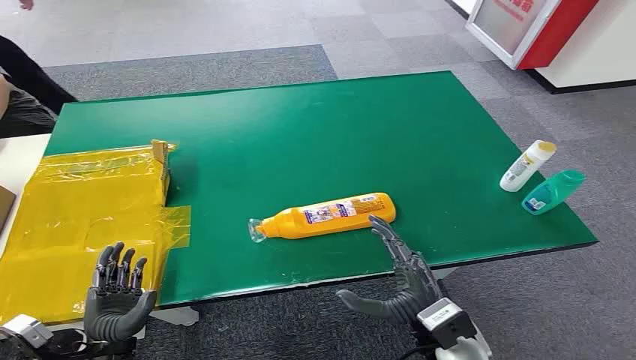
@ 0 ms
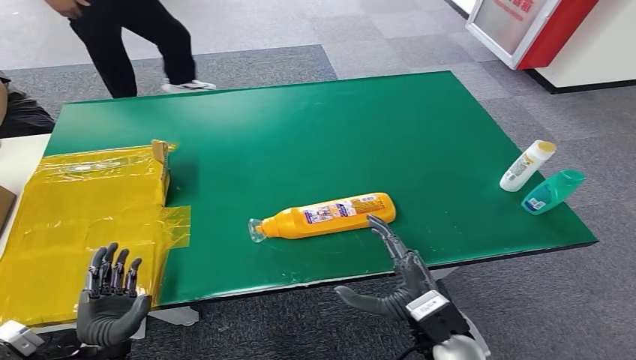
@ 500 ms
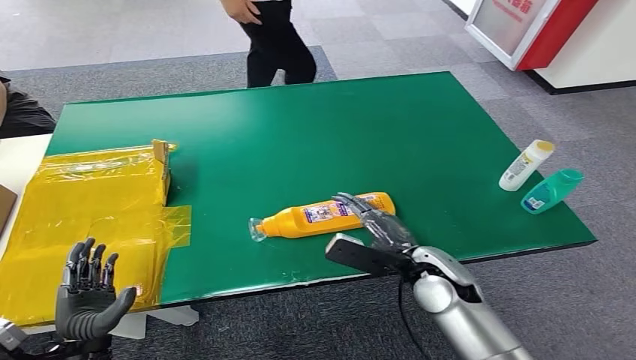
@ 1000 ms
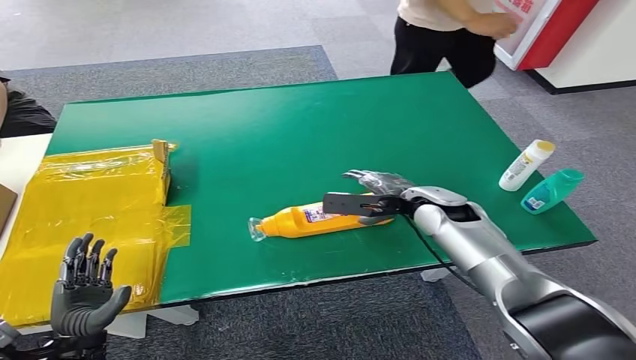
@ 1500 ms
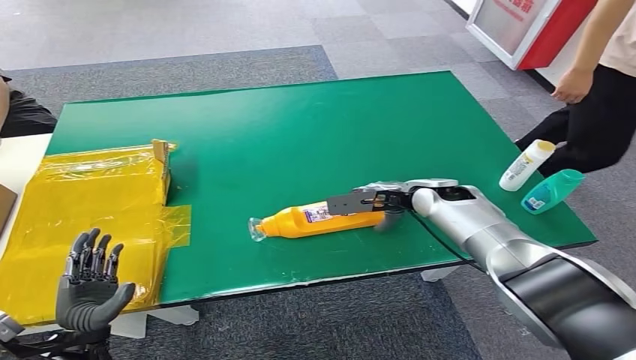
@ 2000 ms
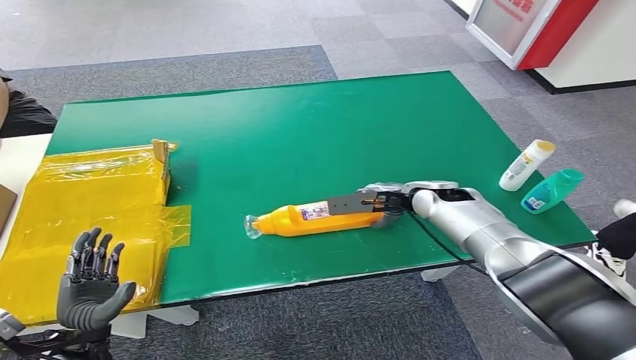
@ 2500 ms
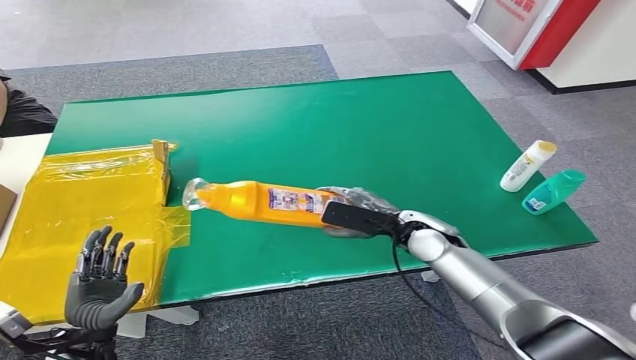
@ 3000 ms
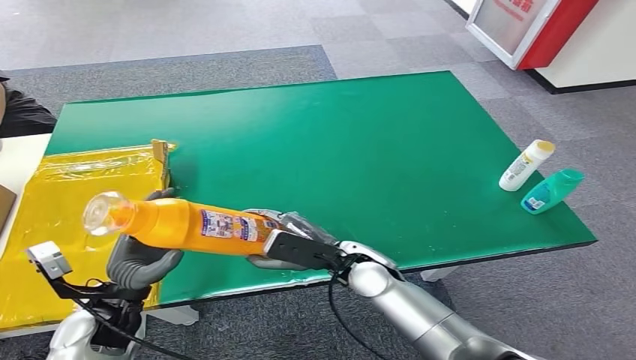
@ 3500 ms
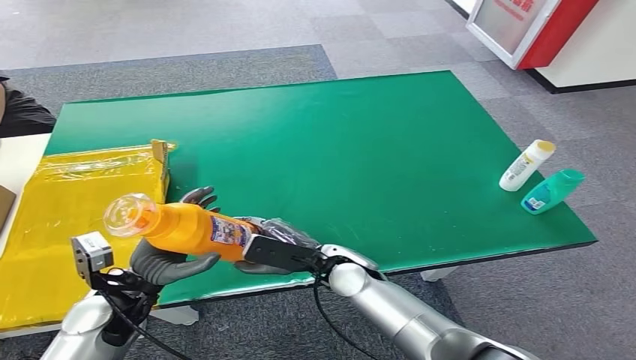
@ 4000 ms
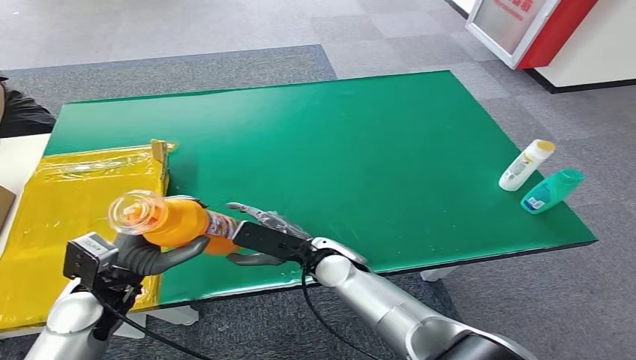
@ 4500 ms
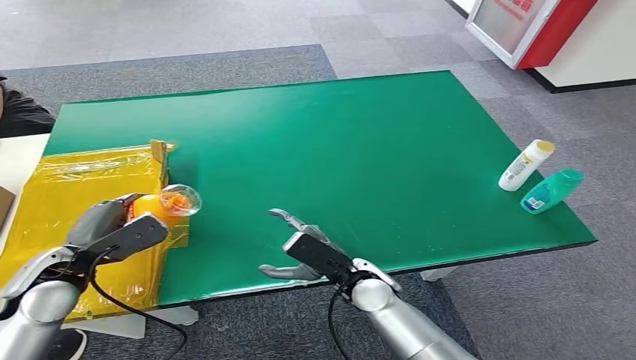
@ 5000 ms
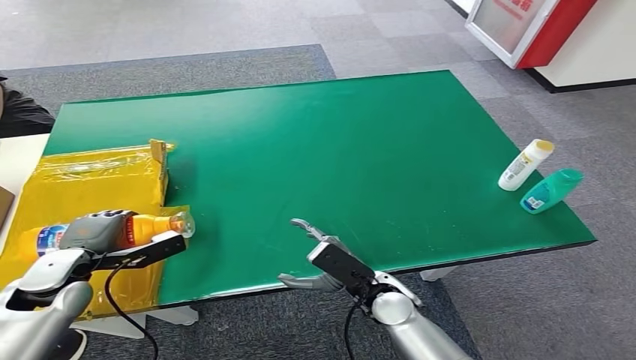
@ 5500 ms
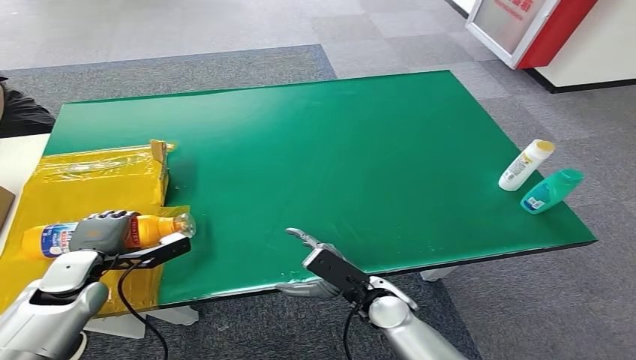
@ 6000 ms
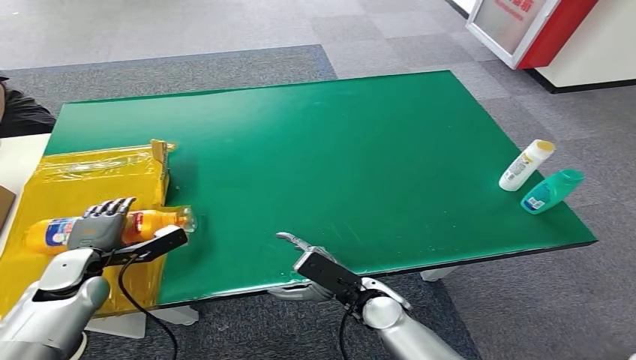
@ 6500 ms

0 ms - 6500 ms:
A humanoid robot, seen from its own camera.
Step, 0 ms - 2500 ms: Pick up the bottle from the table.
Step, 3500 ms - 6500 ms: Turn the bottle to the front side.
4500 ms - 6500 ms: The left hand heads to the left, downward and forward, covering approximately 10 cm. The right hand heads backward, to the right and downward, covering about 10 cm.

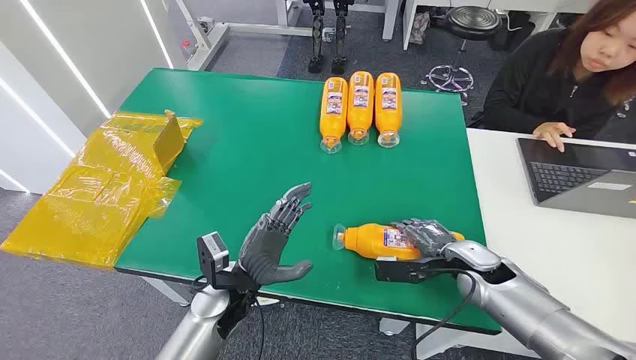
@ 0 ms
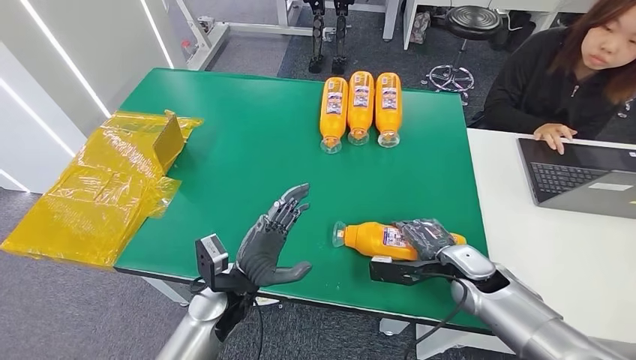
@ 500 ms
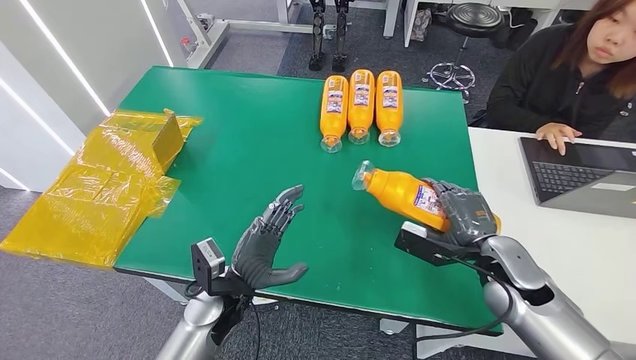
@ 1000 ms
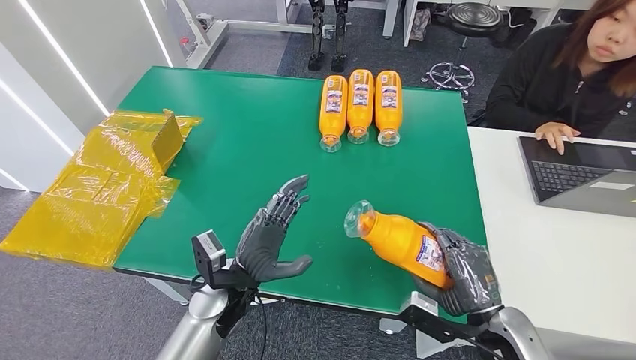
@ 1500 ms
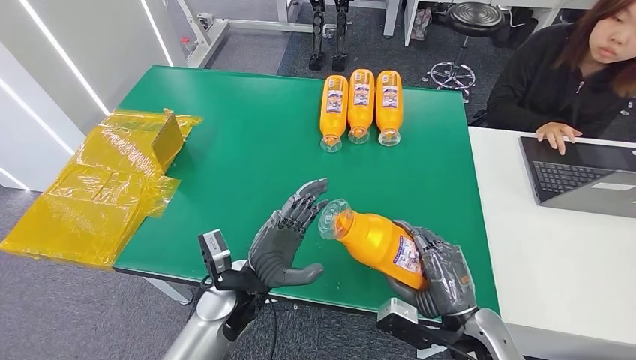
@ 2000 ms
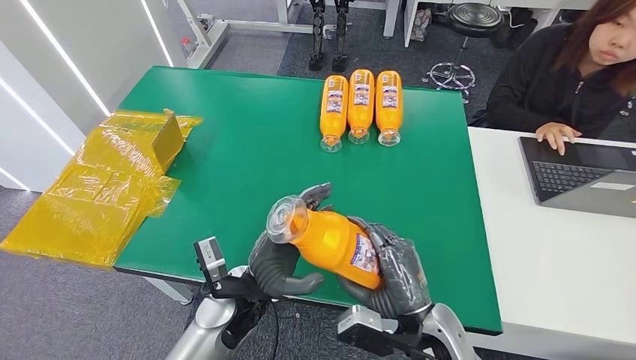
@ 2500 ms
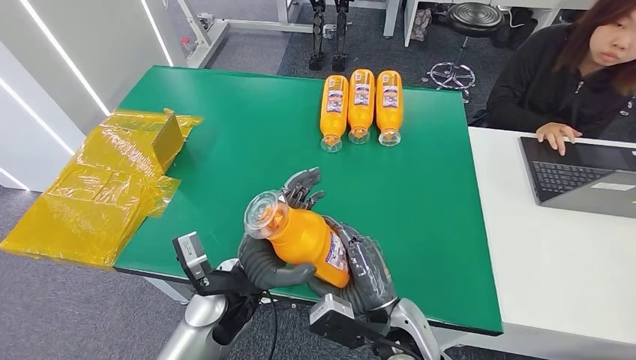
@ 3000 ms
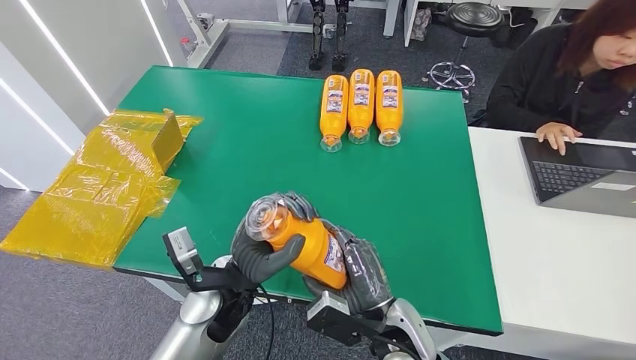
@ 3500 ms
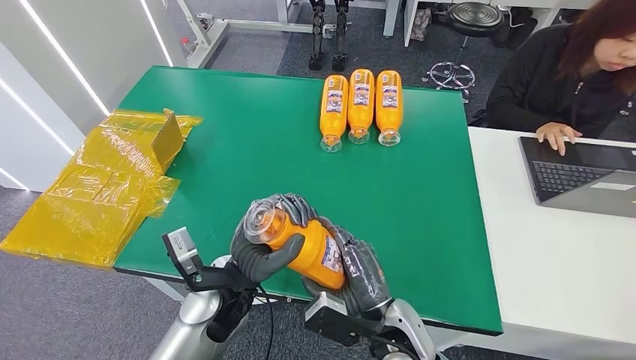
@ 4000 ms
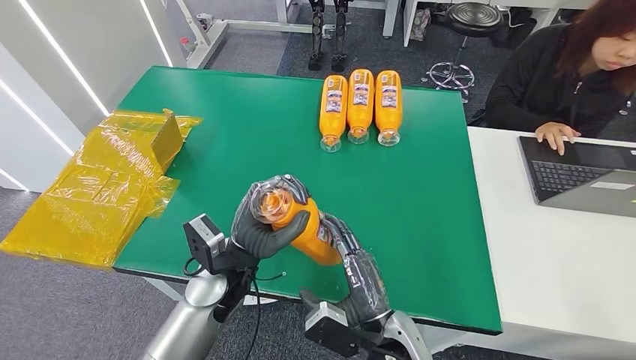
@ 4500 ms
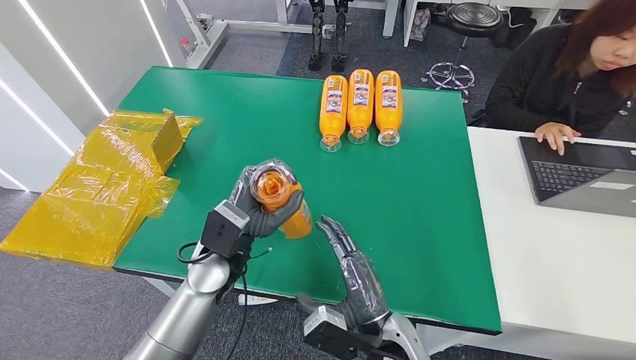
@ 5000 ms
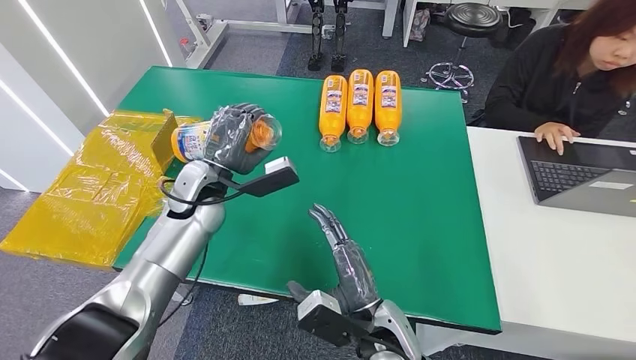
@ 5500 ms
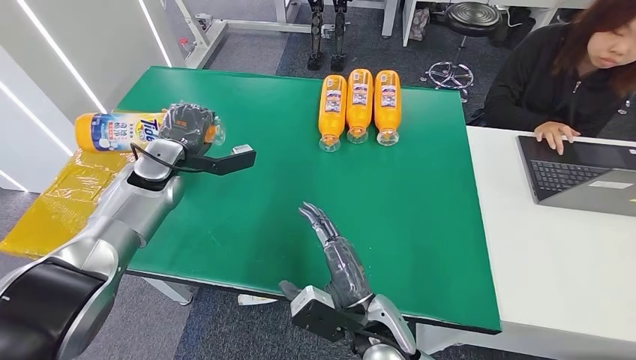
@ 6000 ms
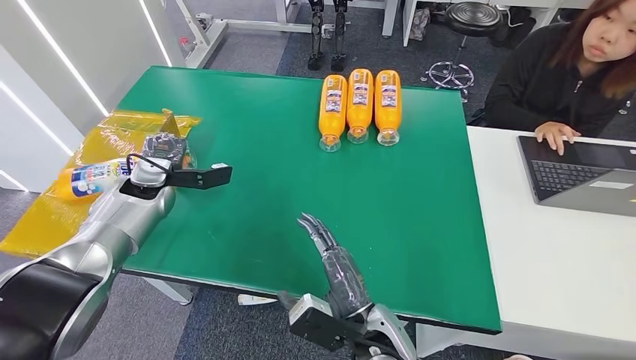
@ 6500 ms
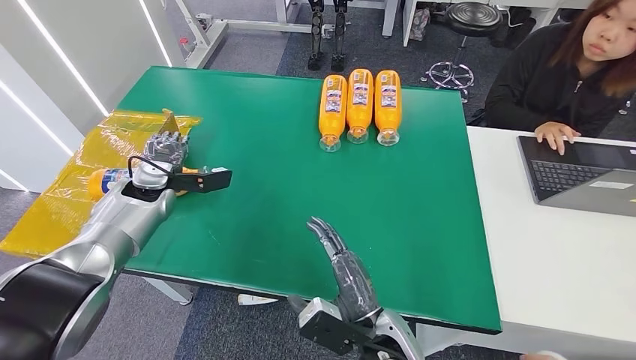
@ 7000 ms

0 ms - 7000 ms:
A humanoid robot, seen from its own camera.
Step, 0 ms - 2500 ms: Pick up the bottle from the table.
Step, 3000 ms - 7000 ms: Turn the bottle to the front side.
2000 ms - 3500 ms: The right hand moves to the left, roughly 15 cm.
3500 ms - 5000 ms: The left hand travels forward by roughly 5 cm.
5000 ms - 7000 ms: The left hand shifts roughly 25 cm to the left and forward.
